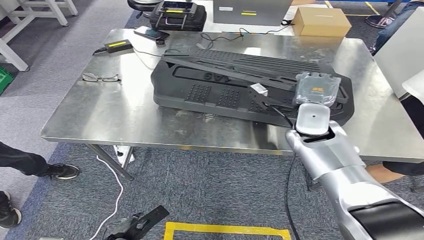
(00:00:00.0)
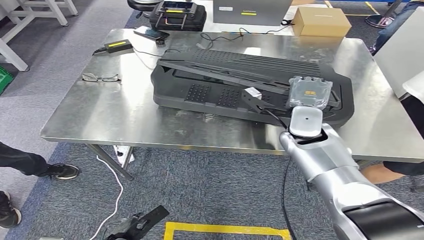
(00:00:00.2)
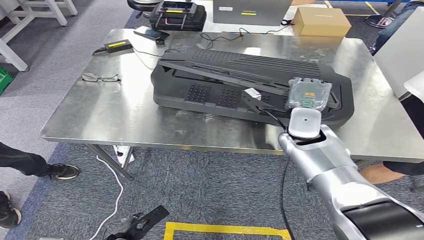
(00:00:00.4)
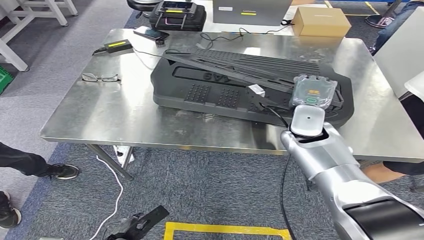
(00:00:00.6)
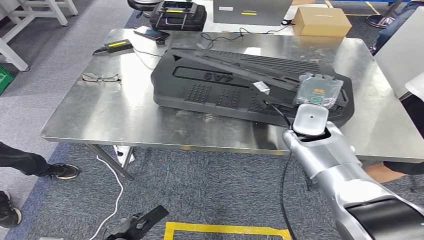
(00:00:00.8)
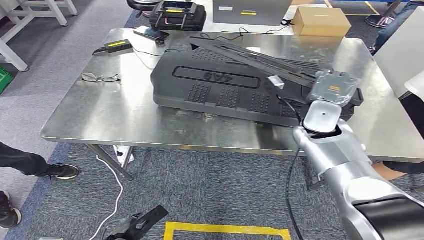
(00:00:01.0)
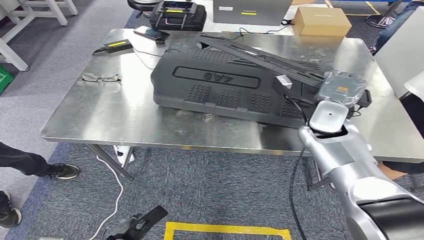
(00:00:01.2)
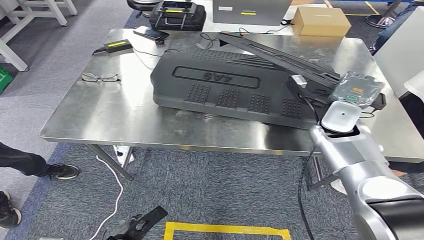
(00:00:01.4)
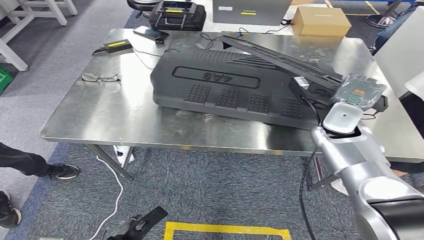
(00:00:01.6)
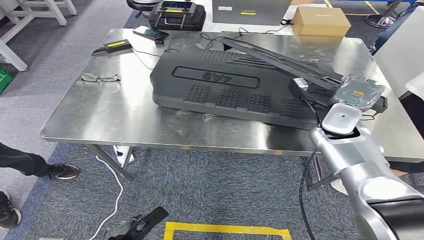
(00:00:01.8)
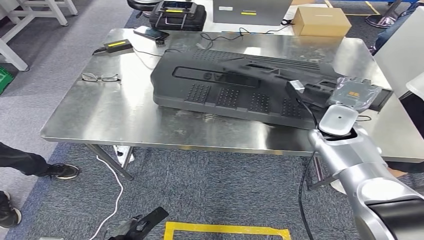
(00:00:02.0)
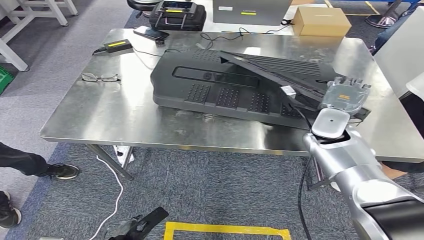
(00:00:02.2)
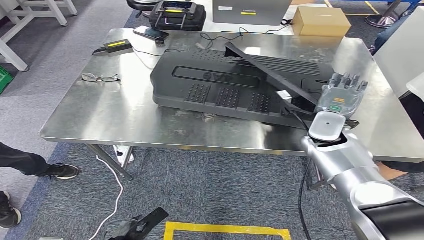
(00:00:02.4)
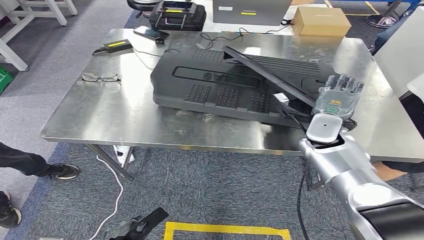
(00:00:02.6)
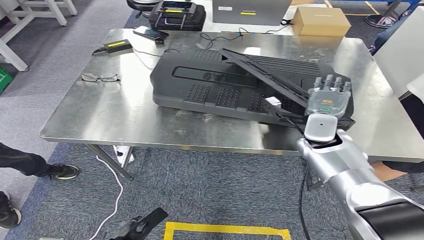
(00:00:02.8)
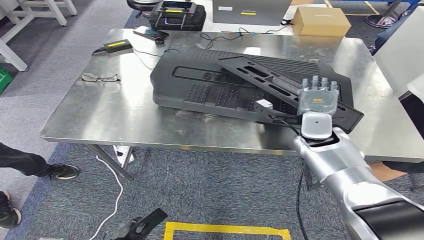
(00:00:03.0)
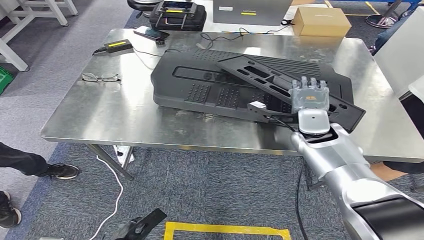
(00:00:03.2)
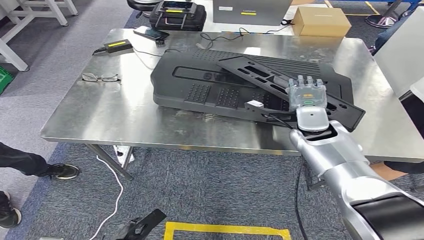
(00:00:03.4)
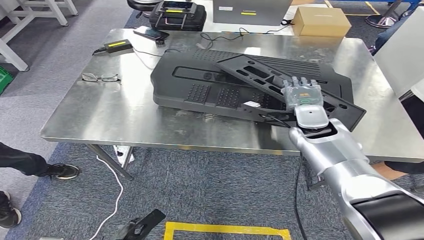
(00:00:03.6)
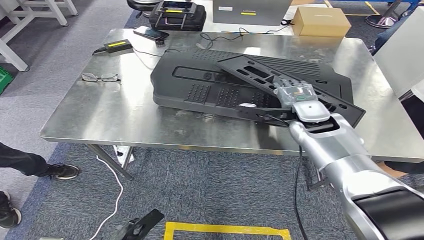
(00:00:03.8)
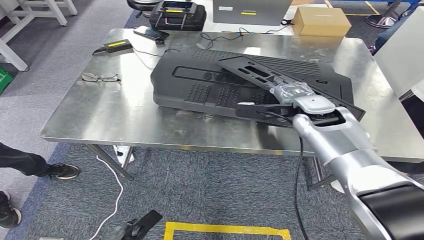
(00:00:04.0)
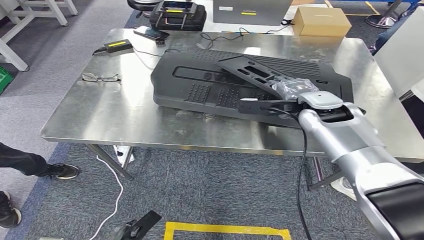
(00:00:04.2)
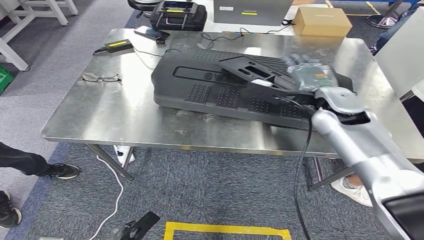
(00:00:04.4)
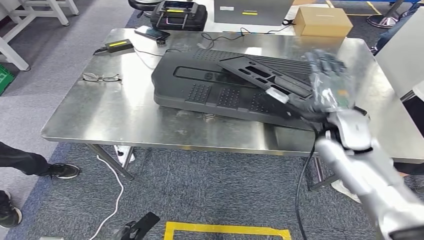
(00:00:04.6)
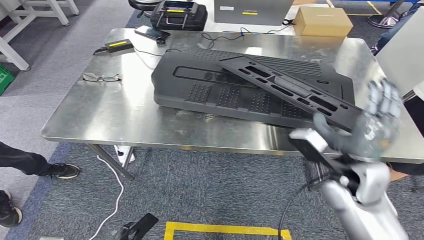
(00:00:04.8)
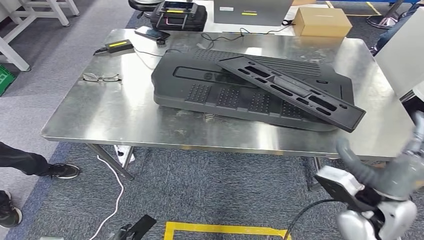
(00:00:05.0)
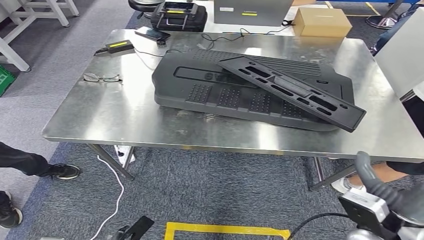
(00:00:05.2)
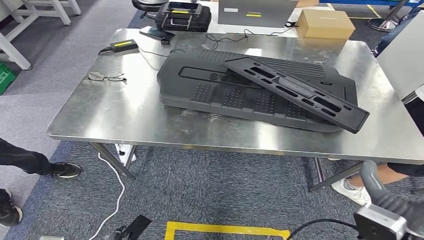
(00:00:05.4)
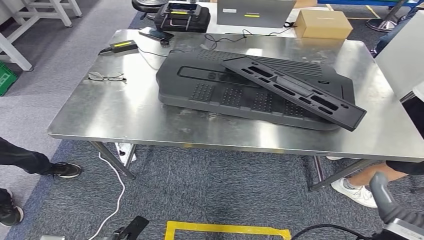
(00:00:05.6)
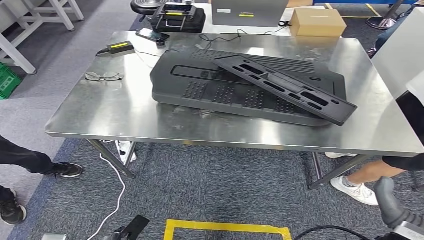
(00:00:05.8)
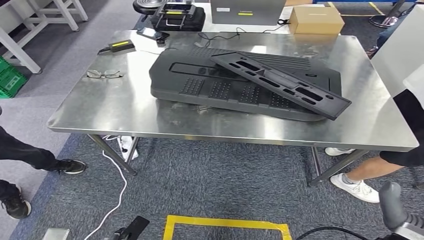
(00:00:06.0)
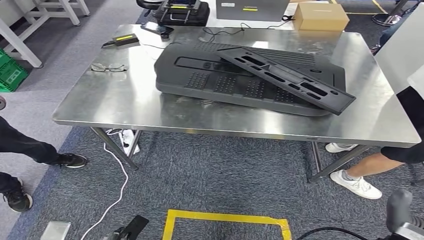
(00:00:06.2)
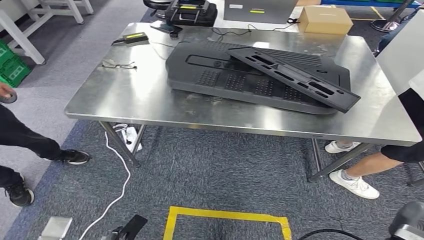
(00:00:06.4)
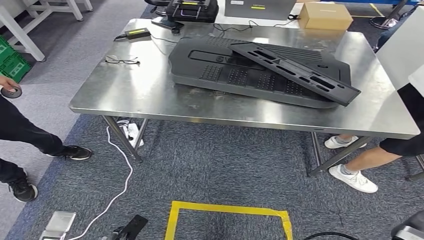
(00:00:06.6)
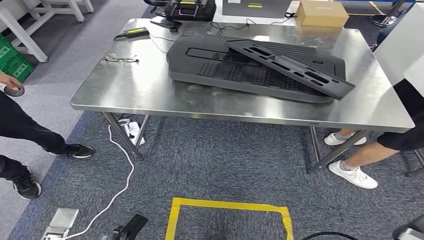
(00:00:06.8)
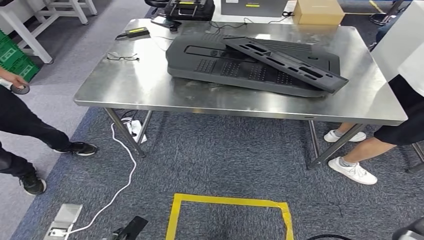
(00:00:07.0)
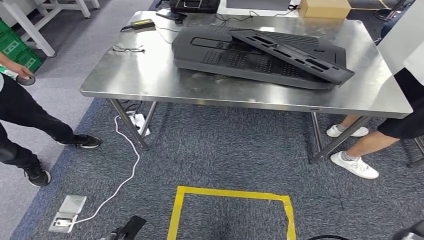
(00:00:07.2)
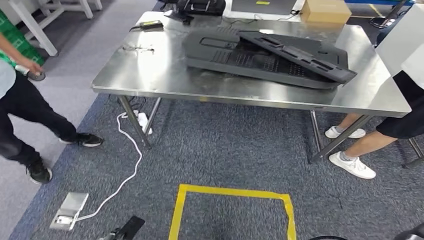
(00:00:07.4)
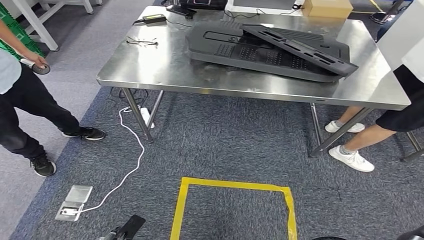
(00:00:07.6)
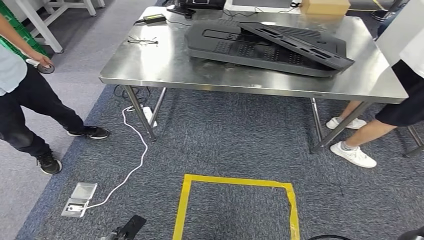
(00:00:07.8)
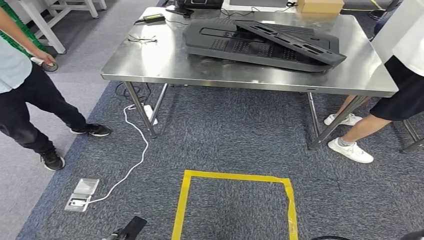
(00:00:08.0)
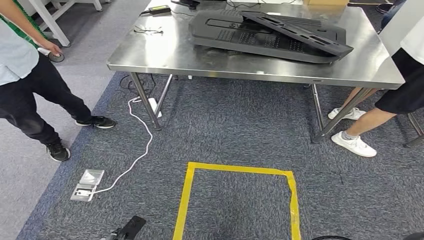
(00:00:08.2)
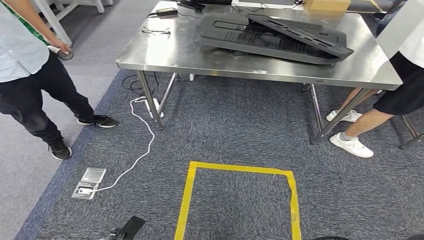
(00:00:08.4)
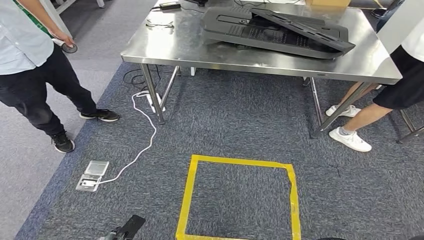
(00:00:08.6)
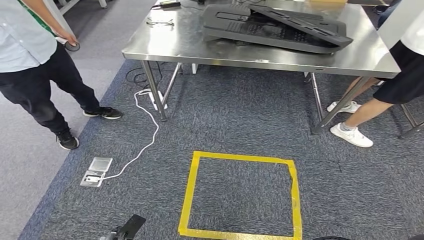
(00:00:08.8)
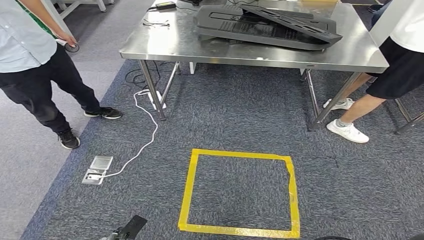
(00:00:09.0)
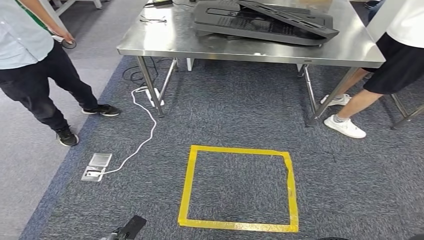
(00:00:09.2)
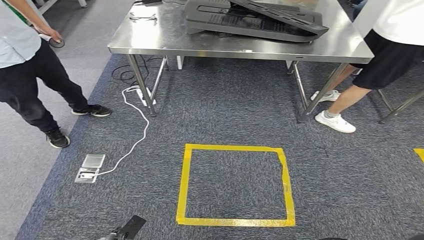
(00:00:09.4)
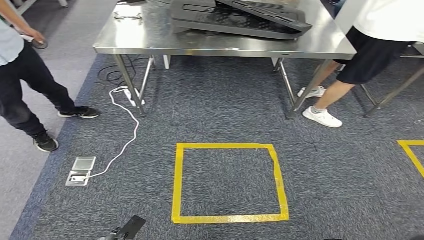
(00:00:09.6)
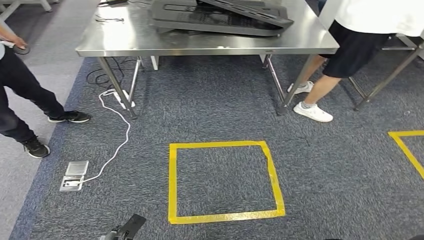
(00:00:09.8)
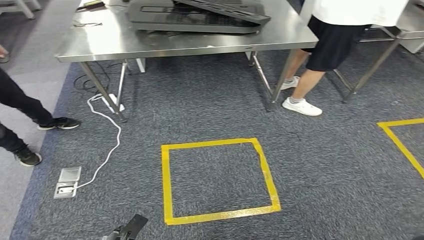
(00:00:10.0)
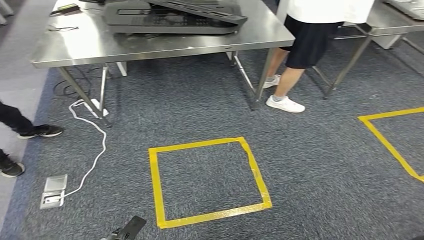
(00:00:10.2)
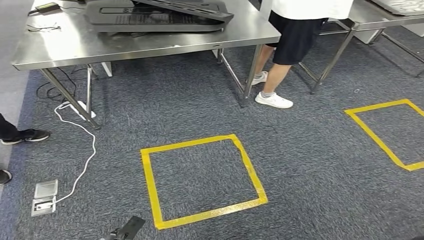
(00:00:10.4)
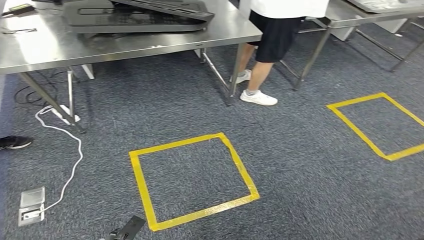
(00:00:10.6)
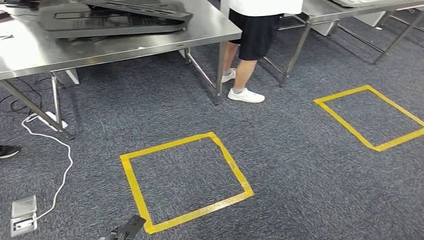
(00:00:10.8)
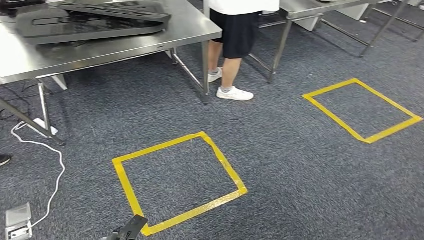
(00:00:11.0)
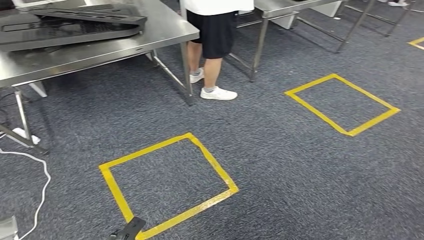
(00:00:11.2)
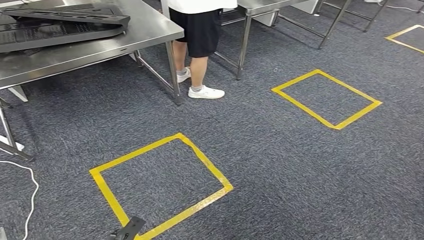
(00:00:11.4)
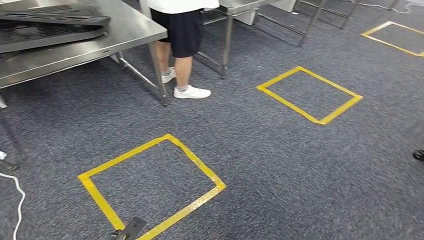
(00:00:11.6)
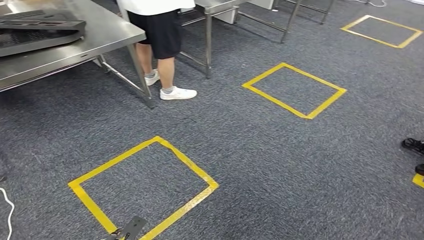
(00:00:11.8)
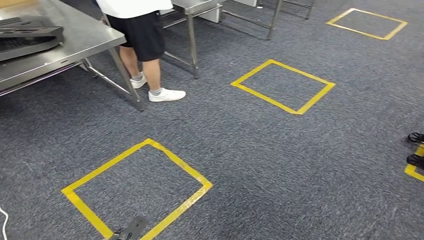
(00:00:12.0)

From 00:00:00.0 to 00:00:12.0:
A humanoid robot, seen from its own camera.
Step, from 00:00:00.0 to 00:00:05.0: Insert the large material into the corresponding slot on the workbench.
From 00:00:00.0 to 00:00:01.6: The right hand goes some 5 cm to the right.
From 00:00:03.0 to 00:00:04.4: The right hand heads upward, covering approximately 10 cm.

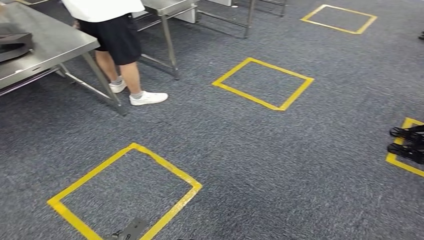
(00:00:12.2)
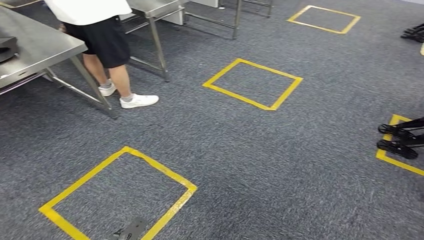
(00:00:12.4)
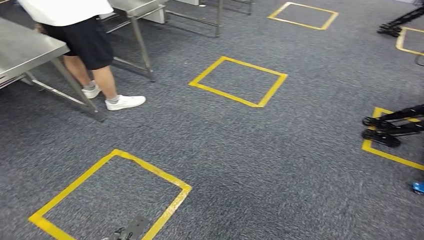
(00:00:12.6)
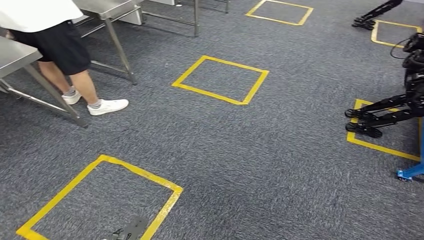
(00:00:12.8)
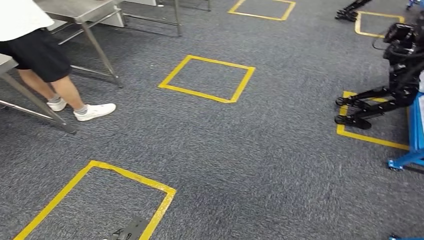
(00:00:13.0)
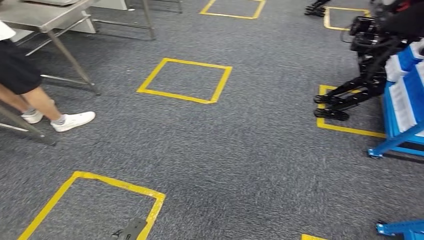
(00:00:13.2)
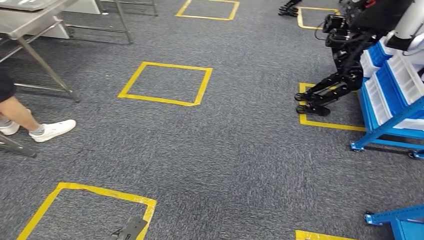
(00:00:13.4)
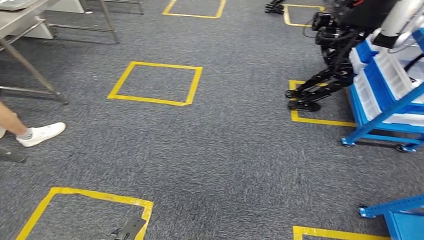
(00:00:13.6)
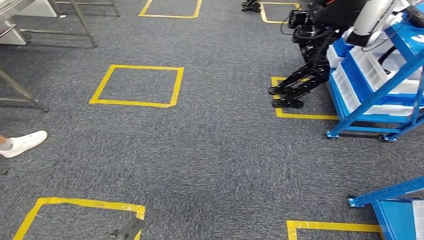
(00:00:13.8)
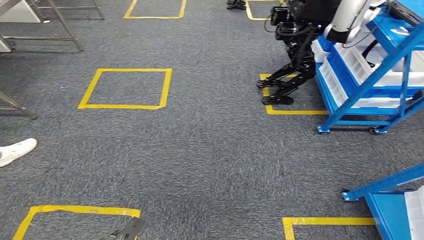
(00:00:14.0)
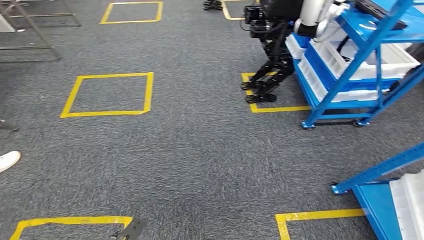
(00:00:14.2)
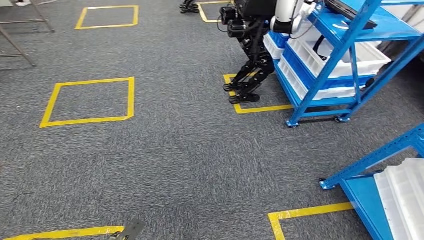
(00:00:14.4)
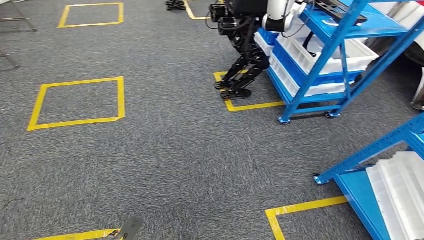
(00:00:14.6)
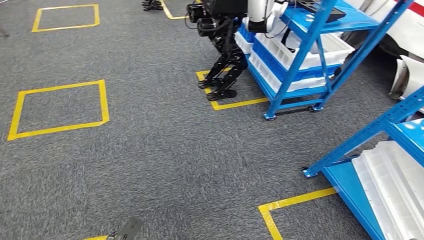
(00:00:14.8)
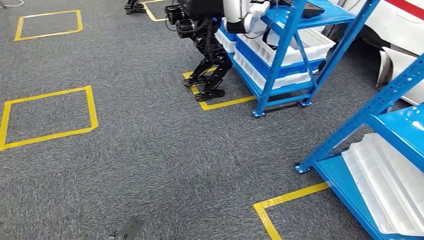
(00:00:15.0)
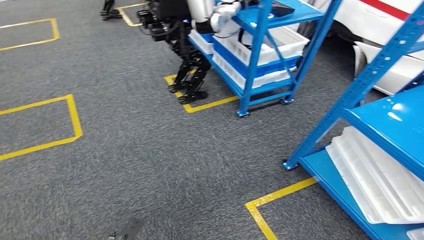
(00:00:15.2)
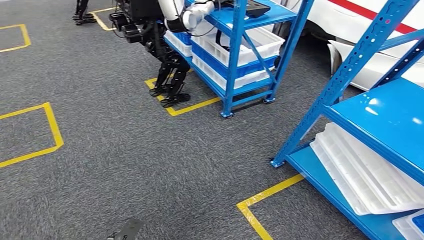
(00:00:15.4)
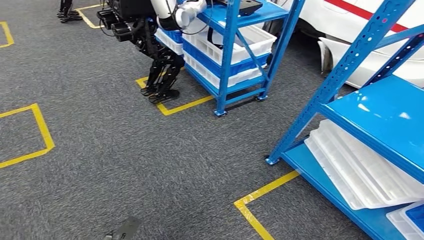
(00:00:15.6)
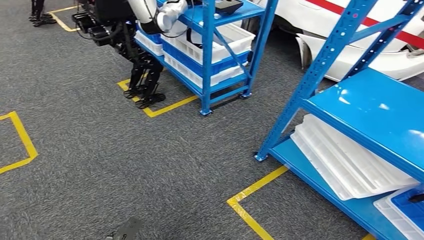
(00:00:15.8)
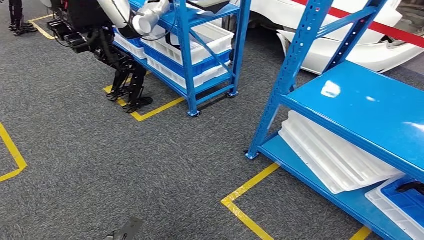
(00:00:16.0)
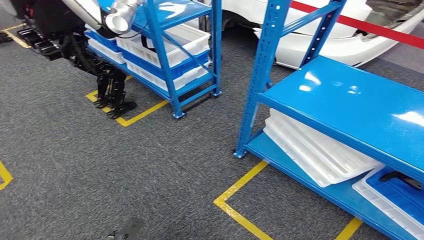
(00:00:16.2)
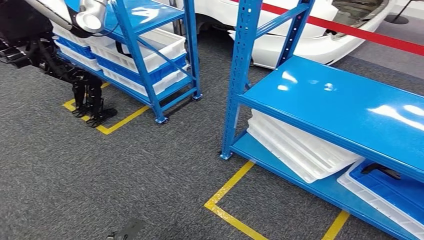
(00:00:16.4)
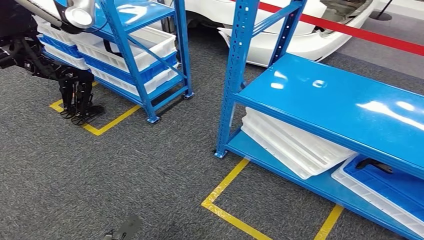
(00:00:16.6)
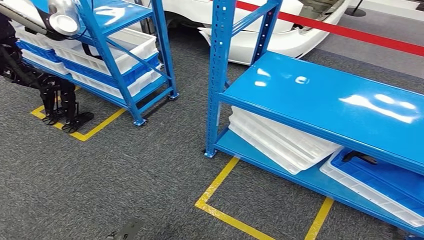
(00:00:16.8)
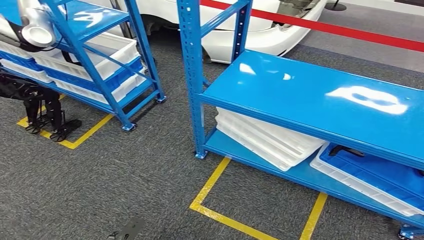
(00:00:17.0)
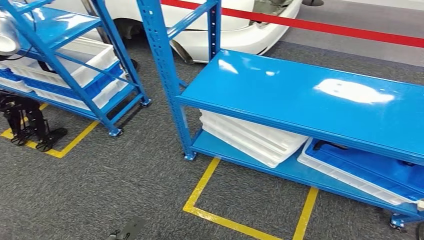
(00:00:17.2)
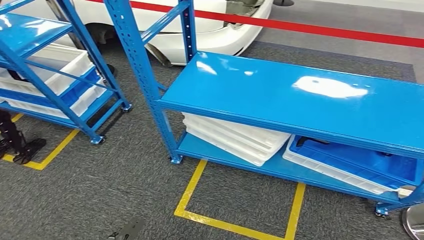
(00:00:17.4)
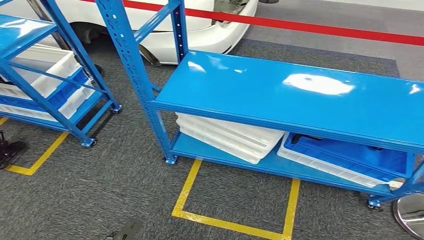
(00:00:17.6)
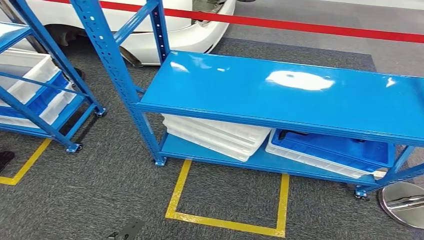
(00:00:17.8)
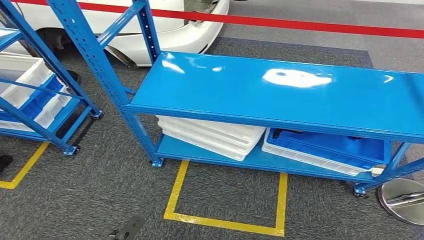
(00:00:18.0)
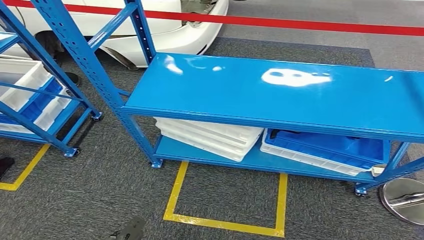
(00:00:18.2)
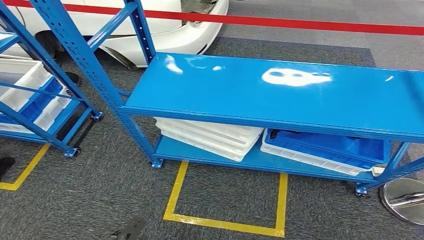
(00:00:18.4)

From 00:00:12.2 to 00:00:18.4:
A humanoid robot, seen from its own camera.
Step, from 00:00:12.2 to 00:00:18.4: Return to the initial position at the shelf.
